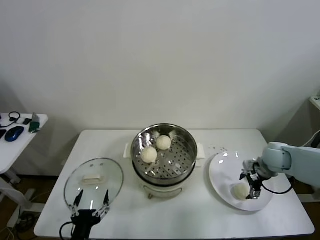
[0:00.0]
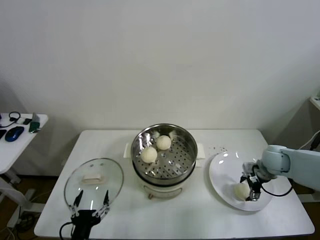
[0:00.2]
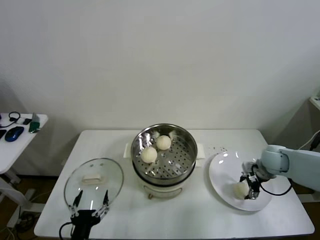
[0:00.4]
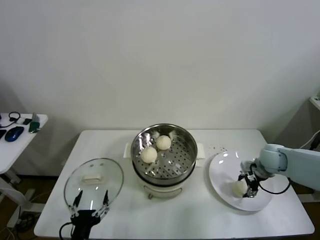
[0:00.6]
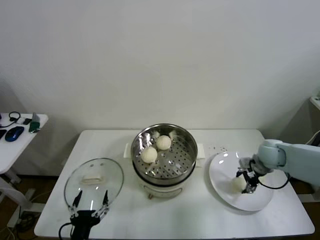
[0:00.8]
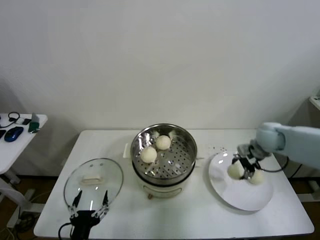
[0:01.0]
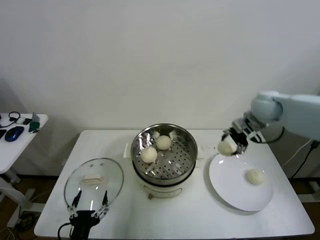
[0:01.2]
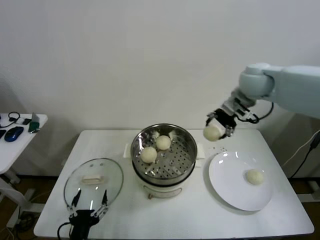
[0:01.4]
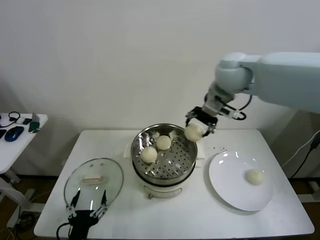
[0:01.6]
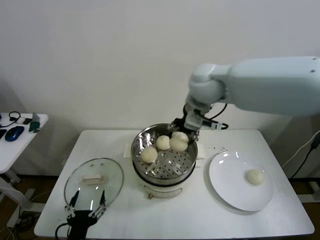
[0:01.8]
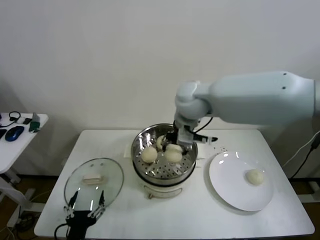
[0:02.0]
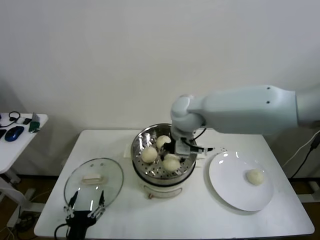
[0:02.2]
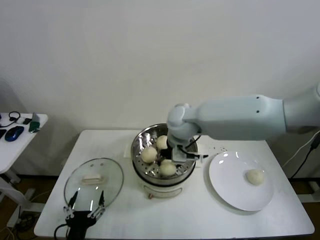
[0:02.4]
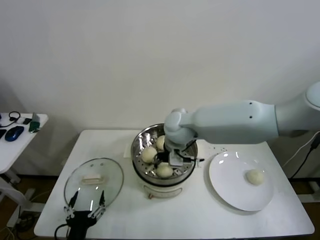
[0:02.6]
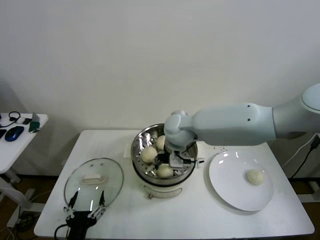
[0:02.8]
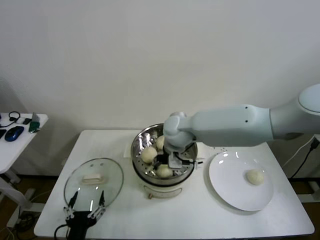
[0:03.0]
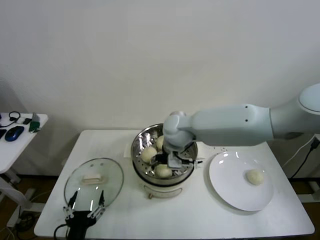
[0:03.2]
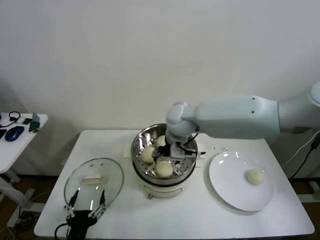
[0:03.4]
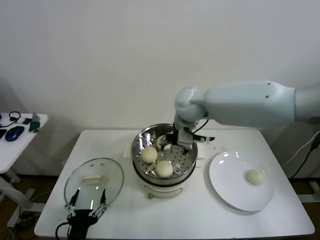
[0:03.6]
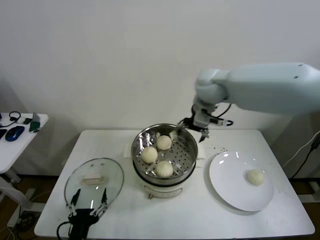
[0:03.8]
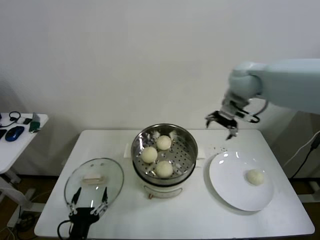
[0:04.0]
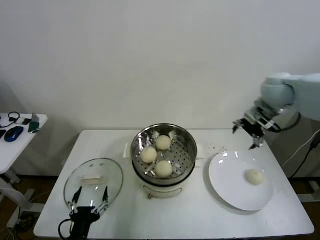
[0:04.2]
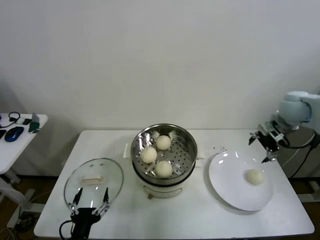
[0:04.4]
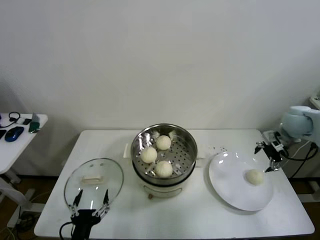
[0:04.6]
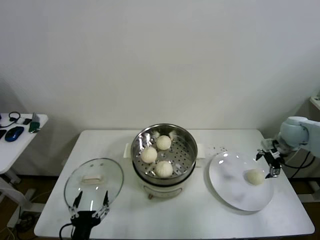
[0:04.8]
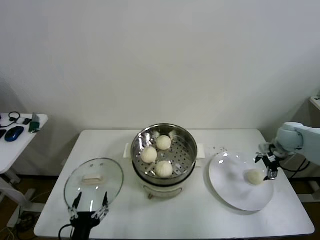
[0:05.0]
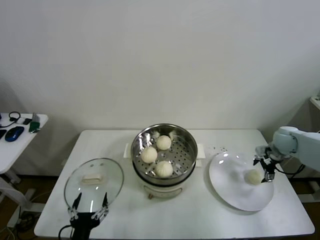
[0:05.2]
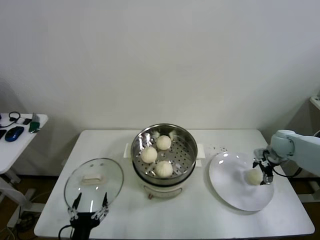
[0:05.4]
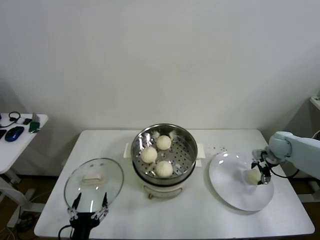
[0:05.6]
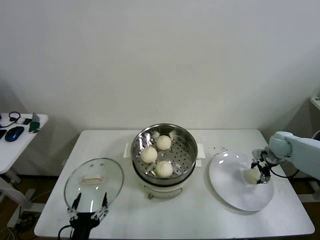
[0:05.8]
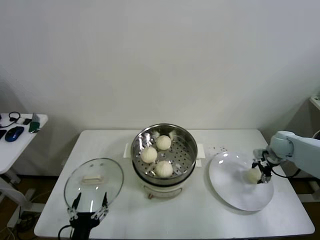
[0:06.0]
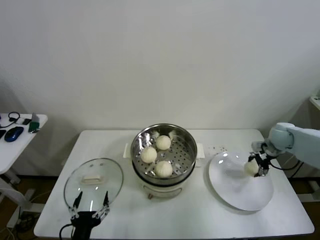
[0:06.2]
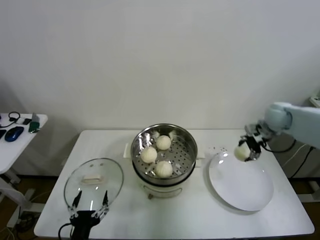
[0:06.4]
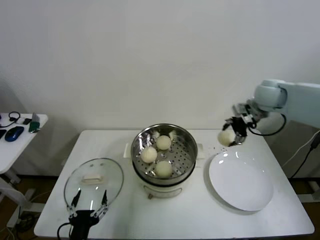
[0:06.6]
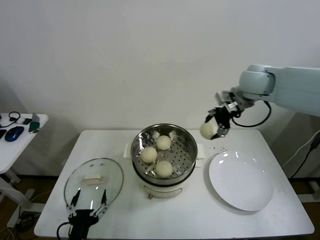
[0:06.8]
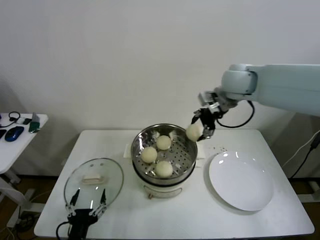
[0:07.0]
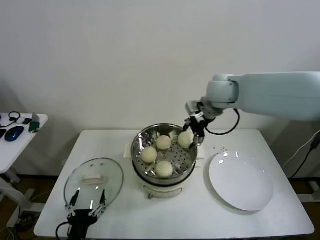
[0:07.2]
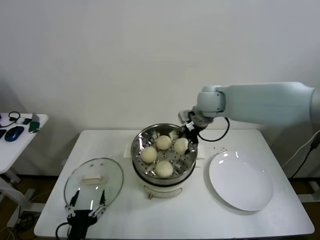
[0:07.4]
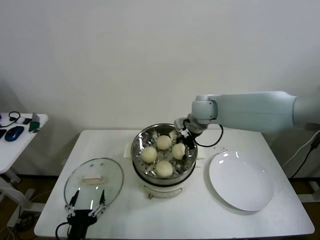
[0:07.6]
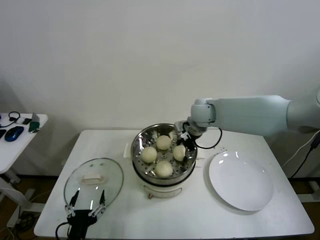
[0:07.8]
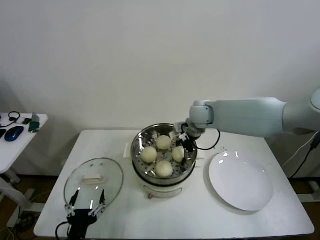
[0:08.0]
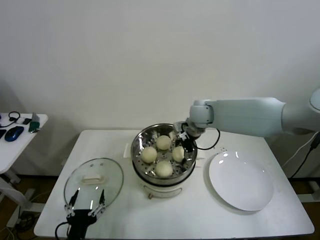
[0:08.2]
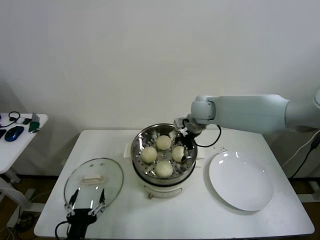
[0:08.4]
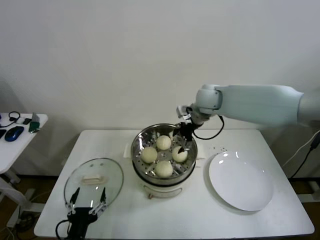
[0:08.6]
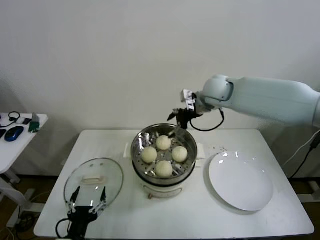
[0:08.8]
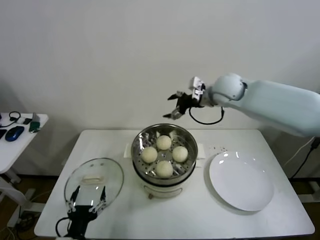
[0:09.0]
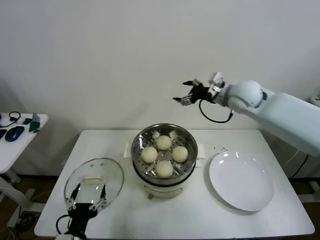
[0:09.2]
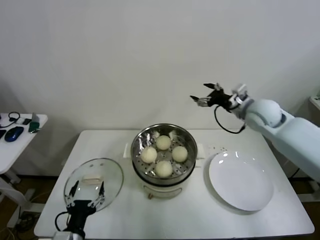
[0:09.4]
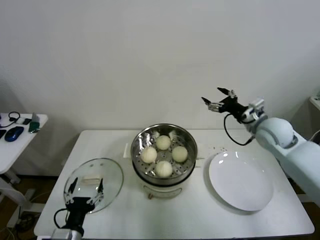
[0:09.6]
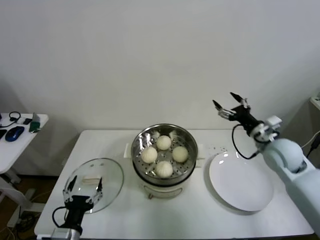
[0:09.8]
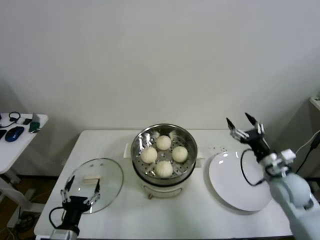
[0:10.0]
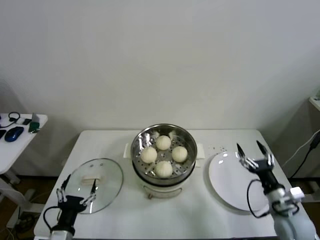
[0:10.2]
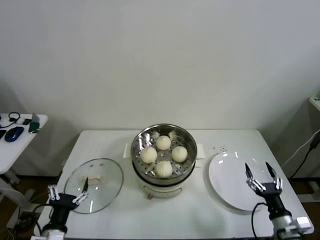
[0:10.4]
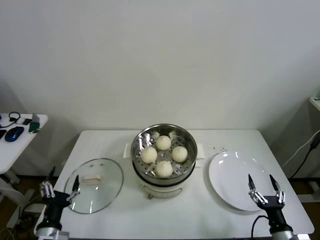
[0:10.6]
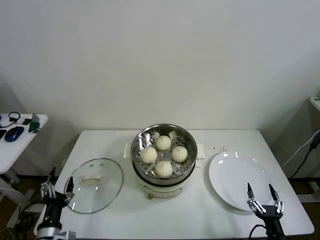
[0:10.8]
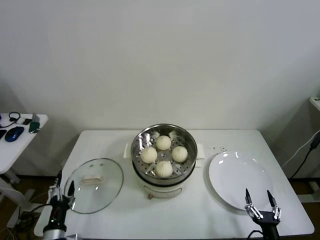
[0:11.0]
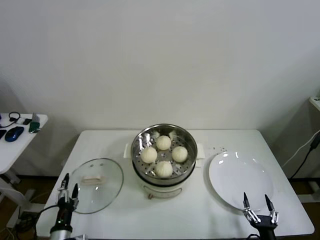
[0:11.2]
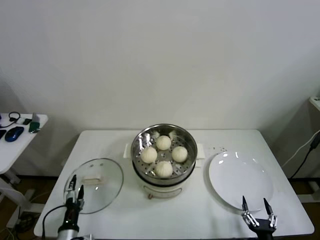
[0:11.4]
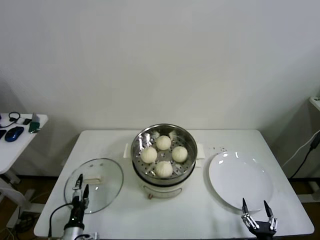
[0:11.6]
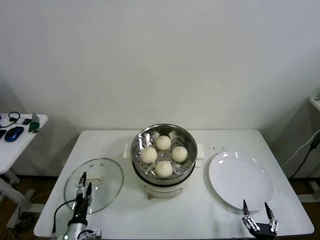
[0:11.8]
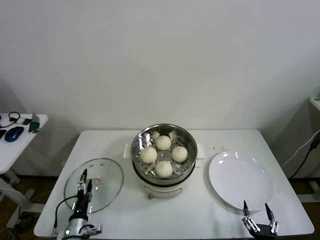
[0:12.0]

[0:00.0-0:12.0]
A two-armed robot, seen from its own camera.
Step, 0:00.6 to 0:03.2: Place the baozi on the steamer with right gripper.
Step, 0:03.4 to 0:05.8: Grasp the baozi in the plate with right gripper.
Step, 0:06.0 to 0:08.2: Place the baozi on the steamer with right gripper.
0:00.0 to 0:01.6: The right gripper goes roughly 35 cm upward and to the left, and closes its fingers.
0:01.6 to 0:03.0: The right gripper travels downward and to the left by roughly 20 cm.
0:03.0 to 0:04.4: The right gripper moves to the right, about 35 cm, and opens up.
0:04.4 to 0:06.0: The right gripper goes approximately 15 cm downward, and closes its fingers.
0:06.0 to 0:07.6: The right gripper heads to the left and upward, covering roughly 35 cm.
0:07.6 to 0:09.0: The right gripper heads upward and to the right, covering about 10 cm, and opens its fingers.
0:09.0 to 0:10.4: The left gripper moves to the left, roughly 5 cm. The right gripper travels backward, downward and to the right by some 50 cm.
0:10.4 to 0:12.0: The left gripper heads downward and forward, covering roughly 15 cm. Meanwhile the right gripper moves backward, downward and to the left, approximately 15 cm.

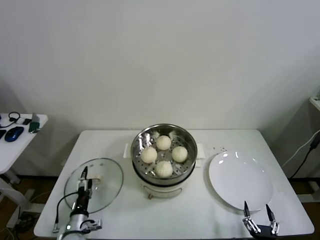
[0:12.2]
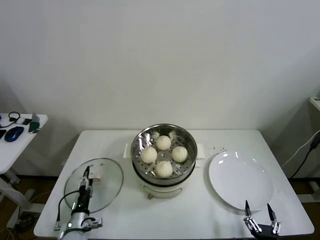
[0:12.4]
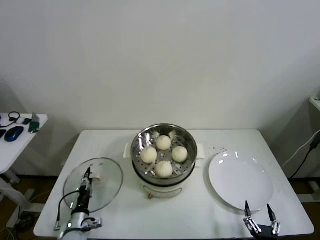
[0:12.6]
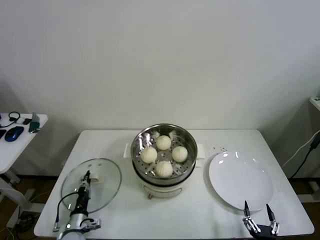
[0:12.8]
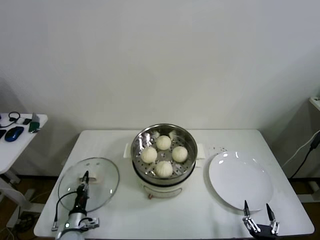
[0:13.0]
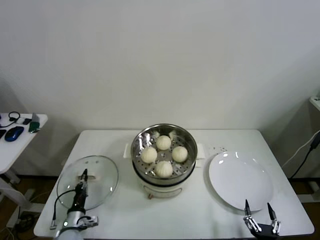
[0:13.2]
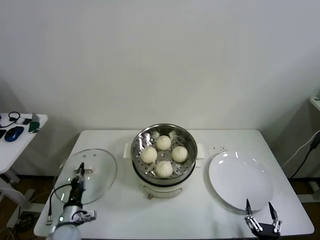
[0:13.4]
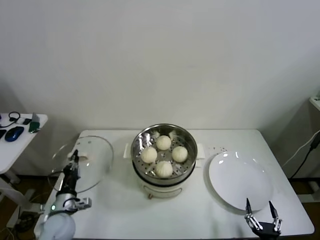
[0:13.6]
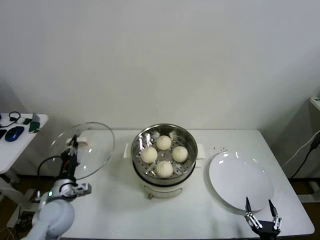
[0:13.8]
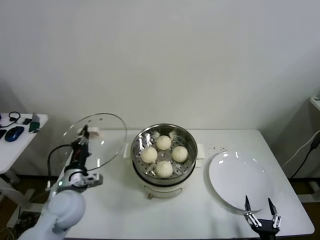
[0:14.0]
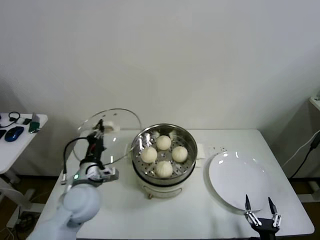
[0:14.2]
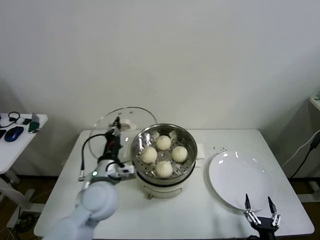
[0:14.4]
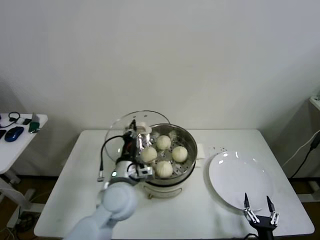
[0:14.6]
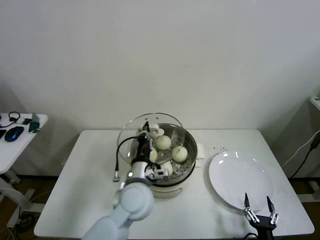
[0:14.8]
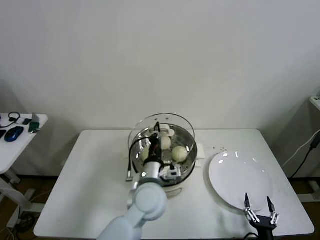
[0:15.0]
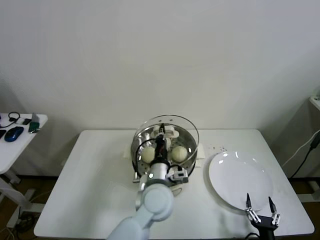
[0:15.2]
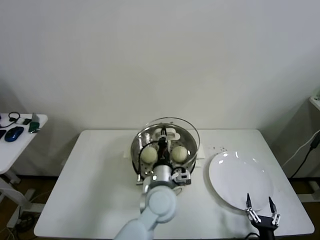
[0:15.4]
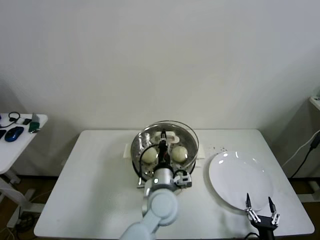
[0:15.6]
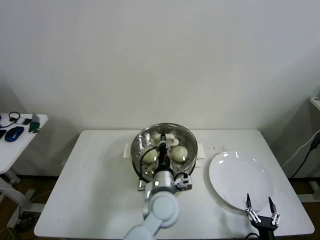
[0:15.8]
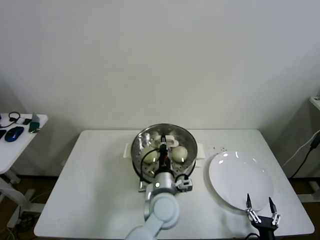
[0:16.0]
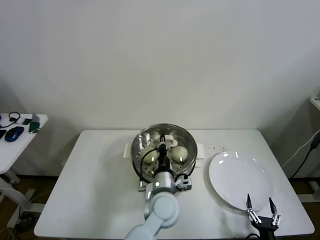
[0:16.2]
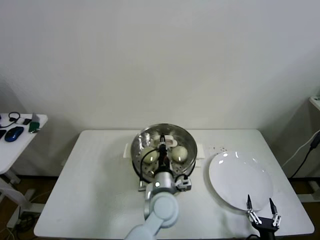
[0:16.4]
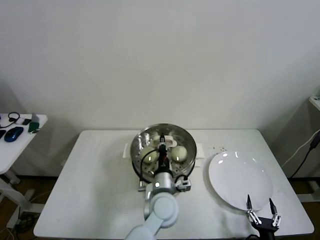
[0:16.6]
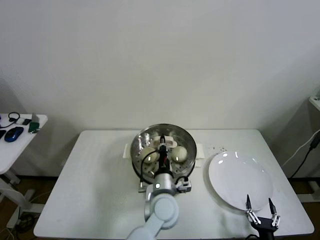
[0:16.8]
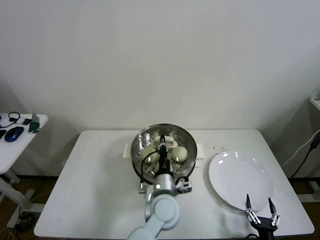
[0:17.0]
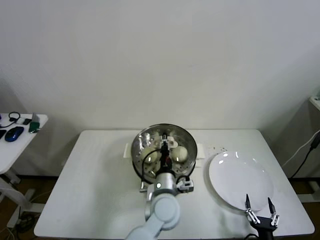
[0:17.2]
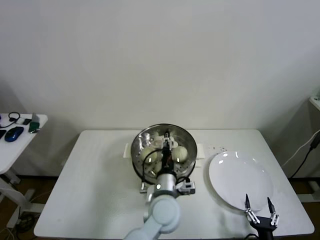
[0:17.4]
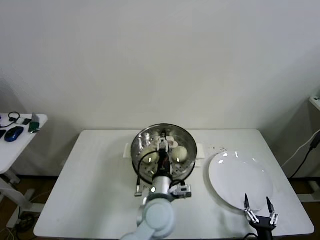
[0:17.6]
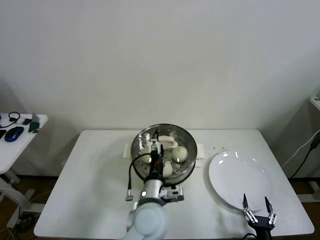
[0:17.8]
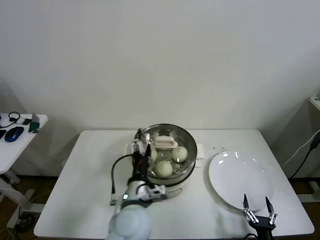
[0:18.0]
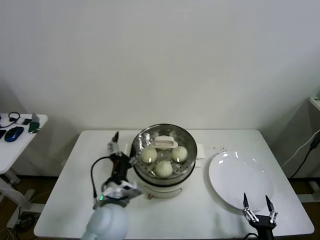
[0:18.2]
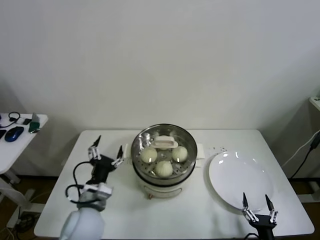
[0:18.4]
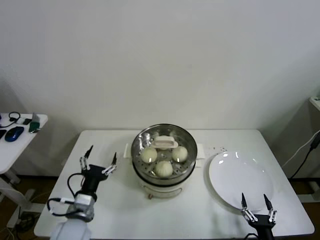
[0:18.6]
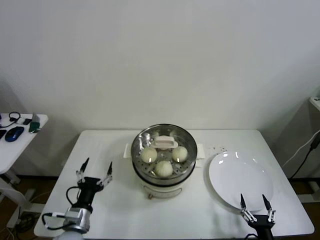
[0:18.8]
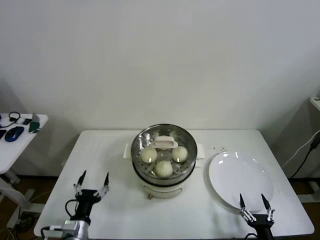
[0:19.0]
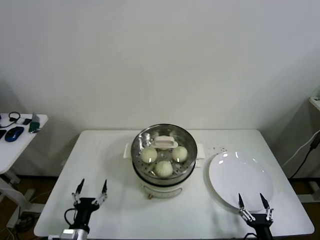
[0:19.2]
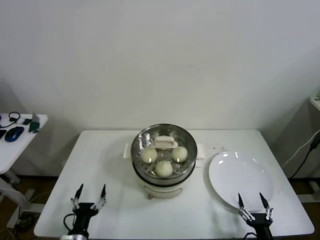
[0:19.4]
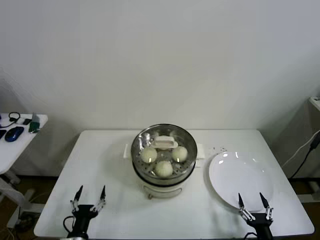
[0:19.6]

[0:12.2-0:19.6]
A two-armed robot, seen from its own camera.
Step, 0:13.0 to 0:17.2: Place the pot lid on the steamer with left gripper.
0:12.2 to 0:13.6: The left gripper is displaced upward by approximately 10 cm, and closes its fingers.
0:13.6 to 0:15.2: The left gripper moves to the right and upward, about 35 cm.
0:15.2 to 0:16.6: The left gripper is displaced downward by approximately 5 cm.
0:16.6 to 0:18.2: The left gripper is displaced to the left, backward and upward by roughly 15 cm, and opens its fingers.
0:18.2 to 0:19.6: The left gripper goes about 25 cm downward, to the left and backward.
